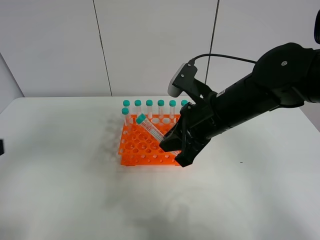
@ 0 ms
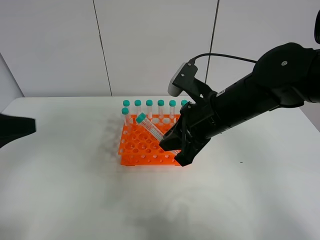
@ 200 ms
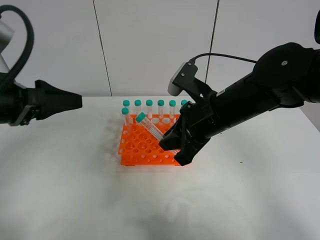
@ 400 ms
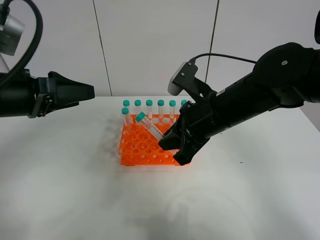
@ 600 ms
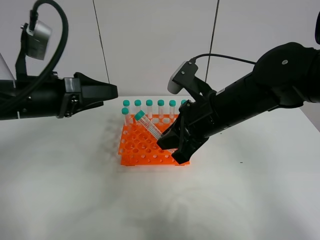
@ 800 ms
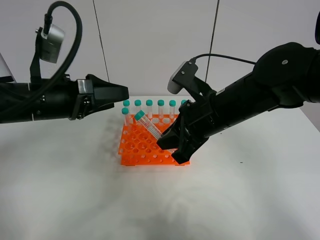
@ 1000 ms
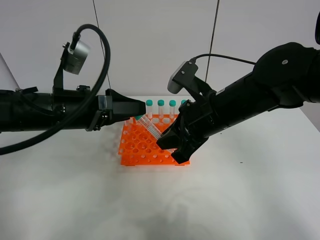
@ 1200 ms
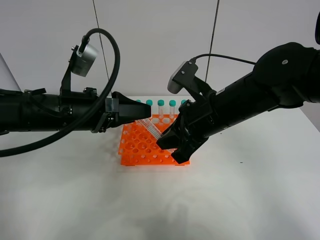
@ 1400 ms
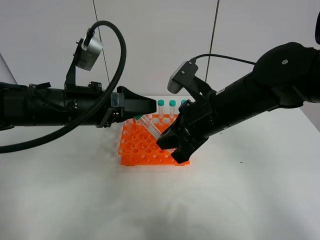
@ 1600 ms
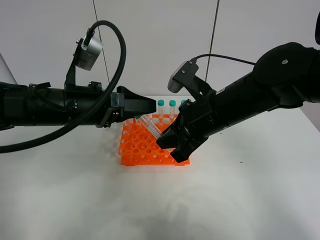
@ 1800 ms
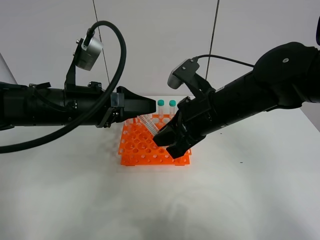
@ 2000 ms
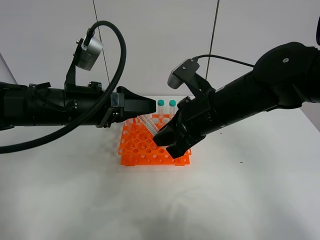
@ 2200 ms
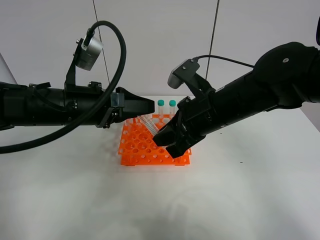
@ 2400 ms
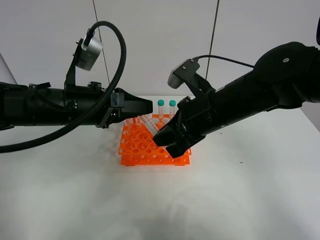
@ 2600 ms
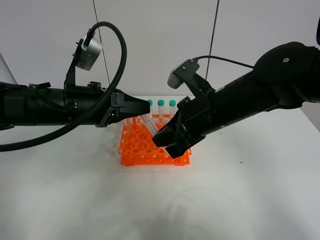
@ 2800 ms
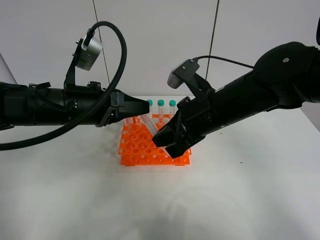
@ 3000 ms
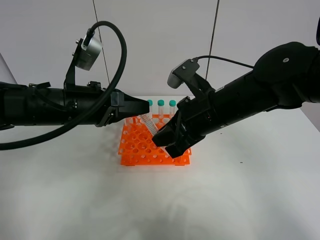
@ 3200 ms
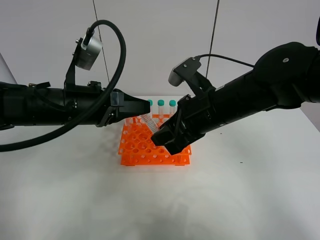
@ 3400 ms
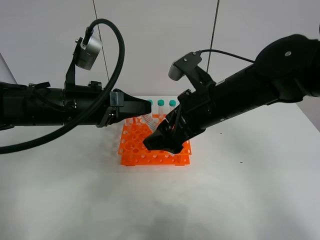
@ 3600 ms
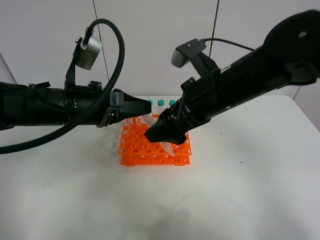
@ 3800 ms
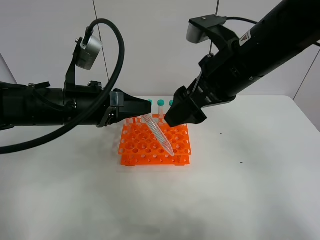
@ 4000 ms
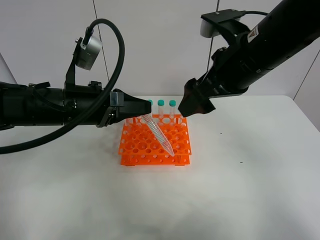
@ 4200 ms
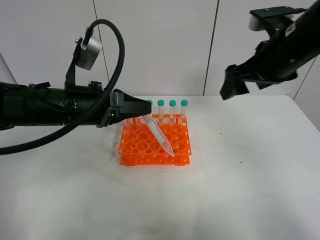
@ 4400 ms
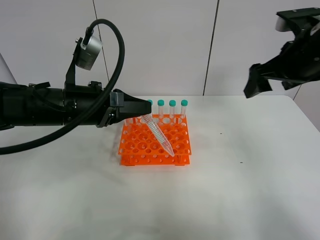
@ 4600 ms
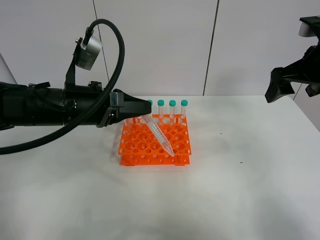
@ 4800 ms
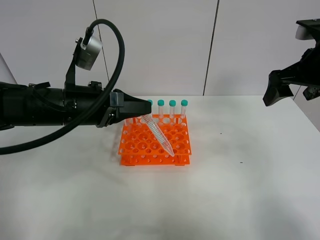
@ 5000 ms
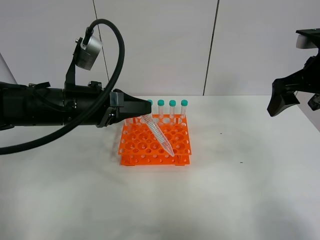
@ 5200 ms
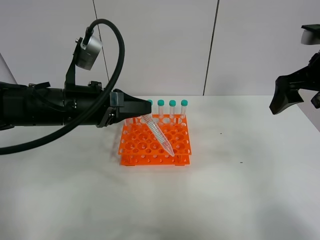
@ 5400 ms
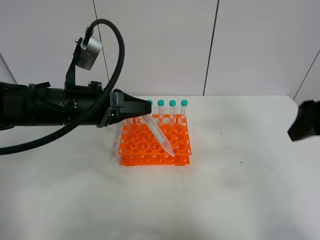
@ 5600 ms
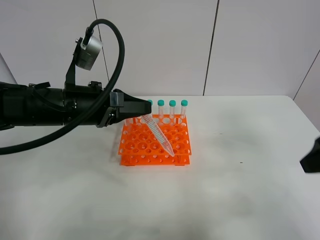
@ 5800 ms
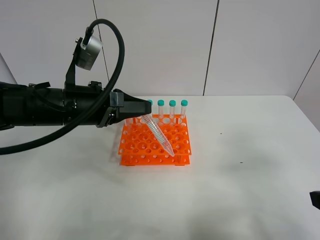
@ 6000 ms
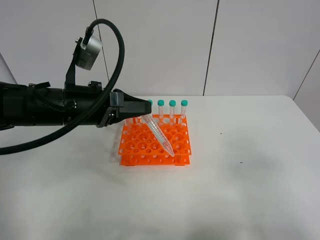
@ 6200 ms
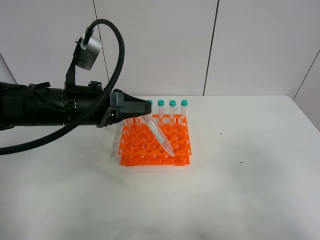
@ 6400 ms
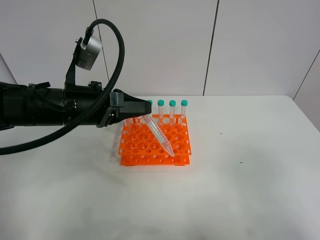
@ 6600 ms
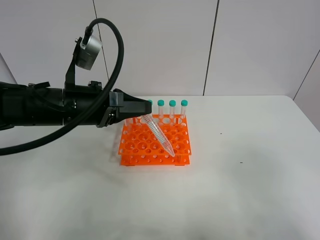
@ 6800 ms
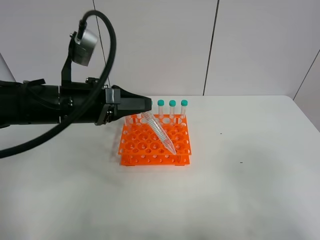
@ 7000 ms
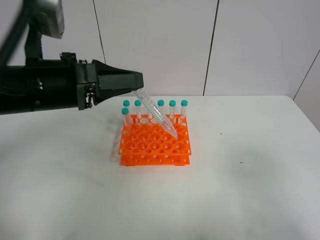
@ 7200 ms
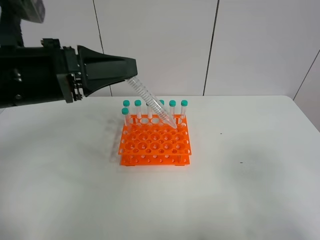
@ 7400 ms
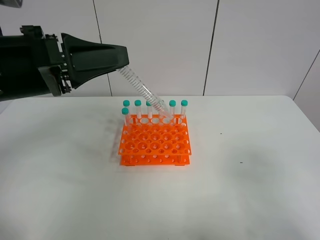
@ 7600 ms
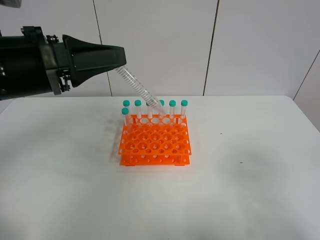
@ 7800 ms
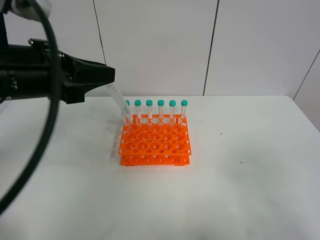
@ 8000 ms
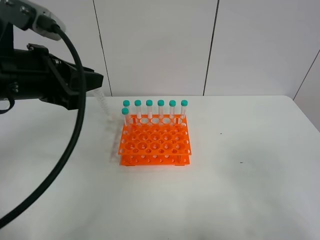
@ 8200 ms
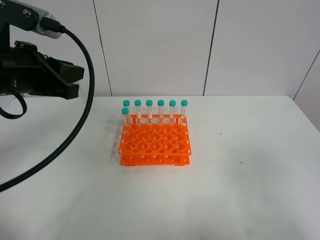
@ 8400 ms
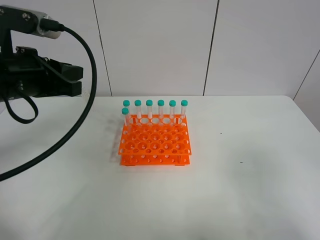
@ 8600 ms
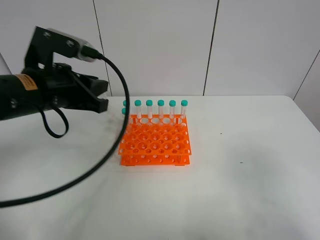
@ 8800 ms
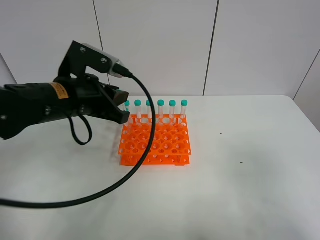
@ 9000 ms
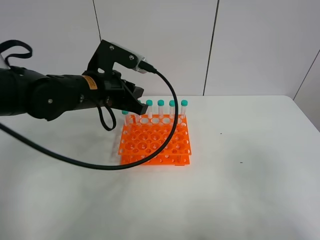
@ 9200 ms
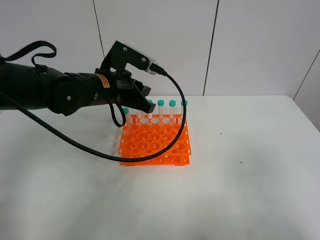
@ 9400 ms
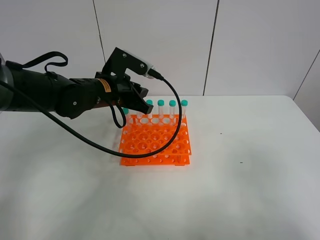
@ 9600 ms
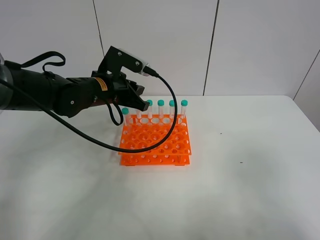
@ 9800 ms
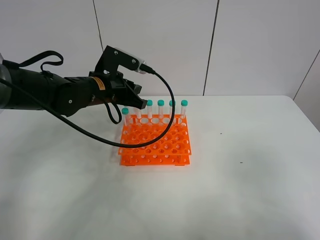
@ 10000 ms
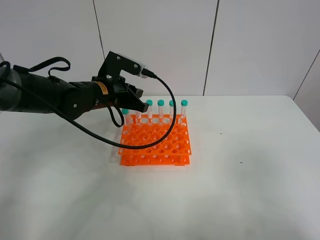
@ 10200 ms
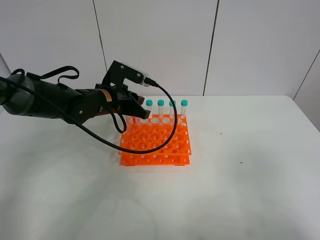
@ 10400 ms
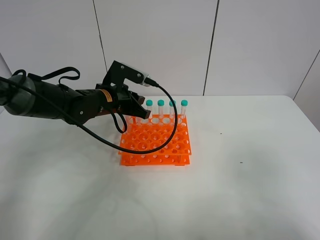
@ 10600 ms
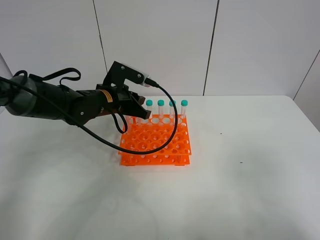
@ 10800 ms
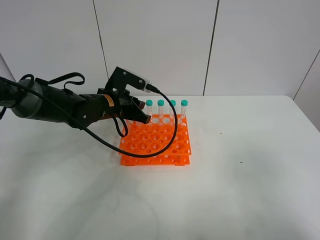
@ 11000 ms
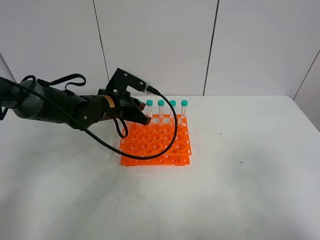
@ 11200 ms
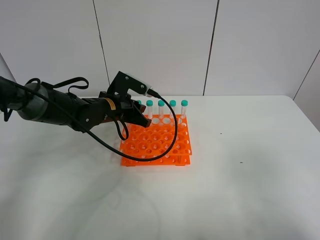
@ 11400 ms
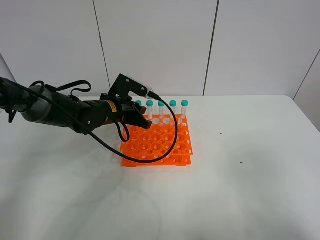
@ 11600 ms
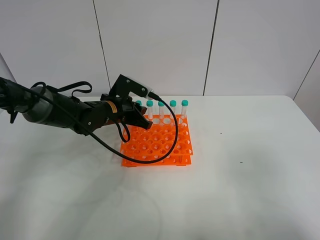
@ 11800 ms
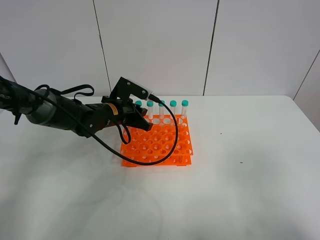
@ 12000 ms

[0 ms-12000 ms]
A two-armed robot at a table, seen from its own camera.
Task of the whole recording: Put the test tube on the table back onto the test tube rack.
Step, 0 ms to 3400 ms: Move the test tube from the right gripper to the left gripper.
0 ms to 1600 ms: The left gripper moves forward, to the right and downward, roughly 20 cm.
1600 ms to 3000 ms: The left gripper closes up.
3000 ms to 4400 ms: The right gripper shifts some 15 cm to the right and upward, and opens up.
4400 ms to 6000 ms: The right gripper travels backward by roughly 25 cm.
6000 ms to 7600 ms: The left gripper heads upward and backward, covering roughly 10 cm, while the right gripper shifts roughly 5 cm backward.
7600 ms to 9000 ms: The left gripper travels forward and downward by roughly 10 cm.
9000 ms to 10400 ms: The left gripper heads forward and downward, covering about 10 cm.
10400 ms to 12000 ms: The grippers make only small movements.

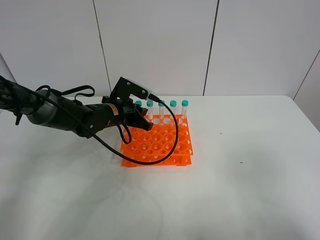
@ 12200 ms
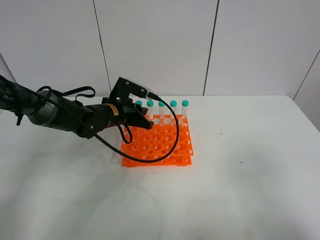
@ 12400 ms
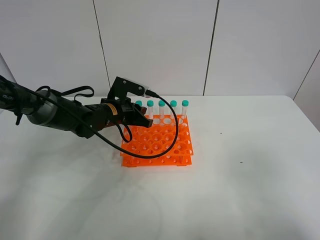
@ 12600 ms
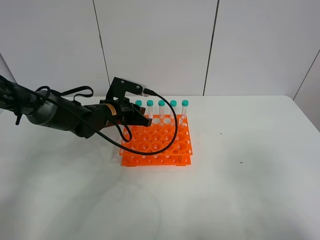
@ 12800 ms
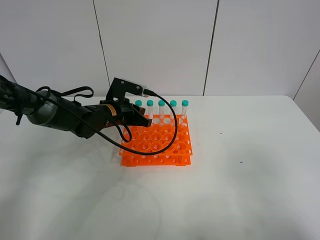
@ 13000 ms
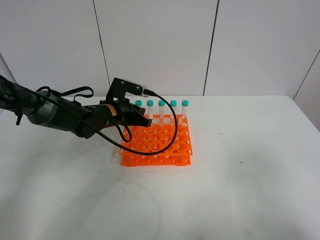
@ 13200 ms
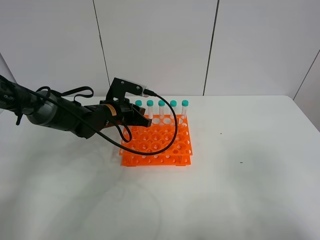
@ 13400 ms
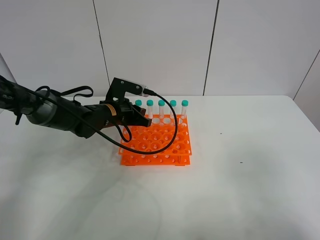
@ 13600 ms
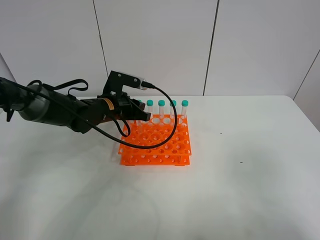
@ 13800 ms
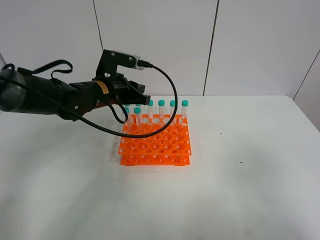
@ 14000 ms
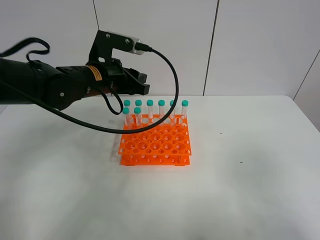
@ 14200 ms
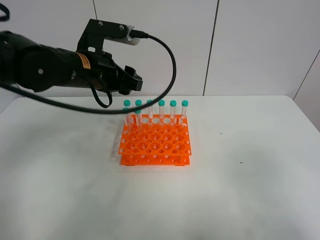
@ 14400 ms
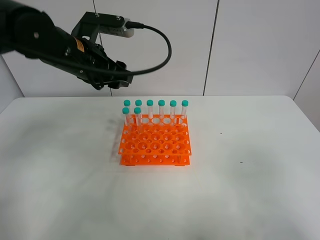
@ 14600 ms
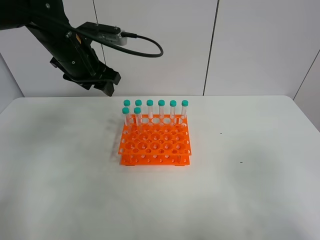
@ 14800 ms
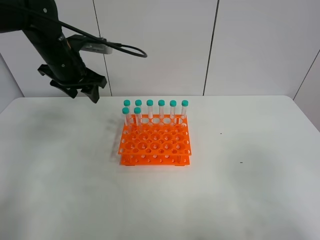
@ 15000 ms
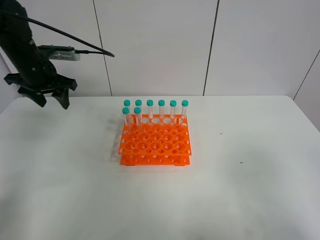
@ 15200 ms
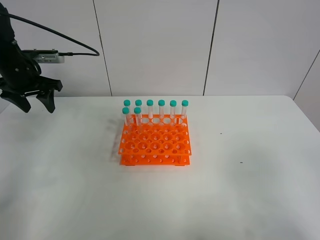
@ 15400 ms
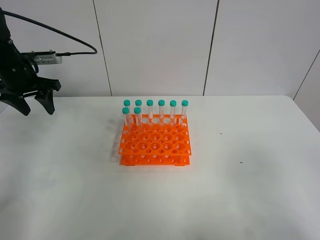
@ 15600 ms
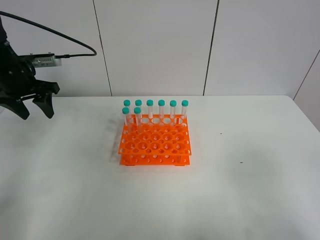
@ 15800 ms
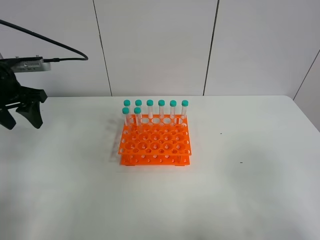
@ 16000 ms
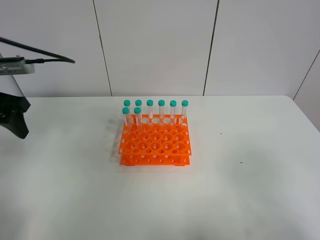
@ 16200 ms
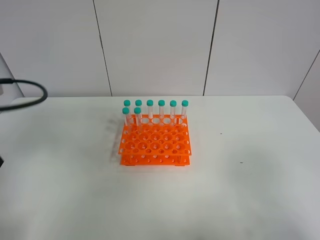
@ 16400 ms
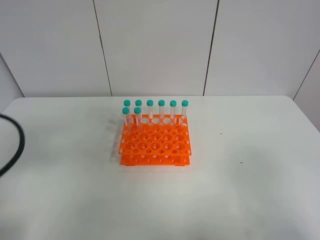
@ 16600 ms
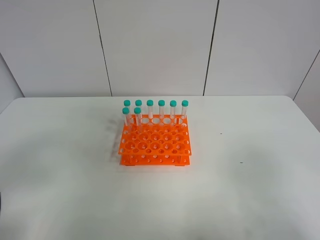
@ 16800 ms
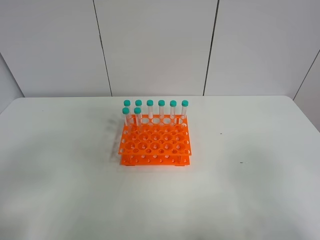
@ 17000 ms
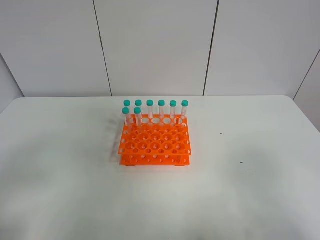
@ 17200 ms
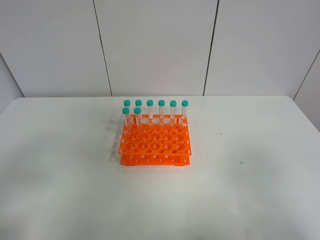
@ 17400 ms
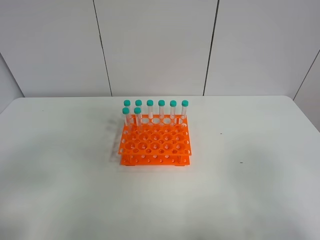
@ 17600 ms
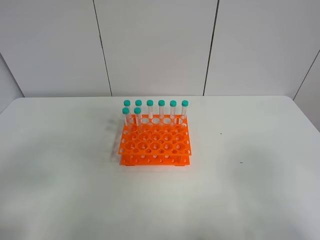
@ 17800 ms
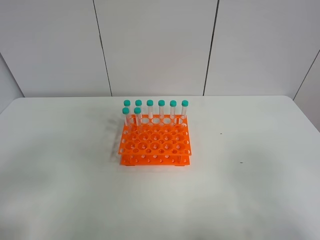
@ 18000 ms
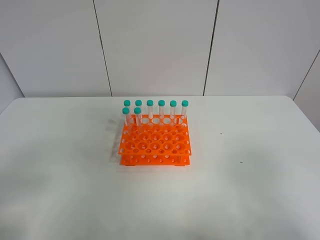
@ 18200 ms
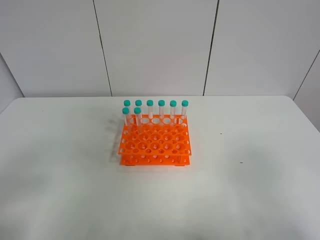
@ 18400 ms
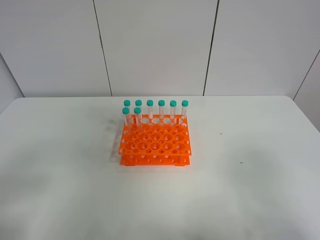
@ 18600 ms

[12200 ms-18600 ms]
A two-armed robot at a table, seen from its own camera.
Task of the whole recording: Put the test tube on the table back onto the test tube rack.
12200 ms to 13800 ms: The grippers move only a little.
13800 ms to 15400 ms: The left gripper shifts roughly 20 cm to the left and upward, and opens.
15400 ms to 17000 ms: The left gripper goes approximately 35 cm backward.
